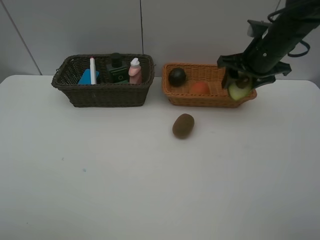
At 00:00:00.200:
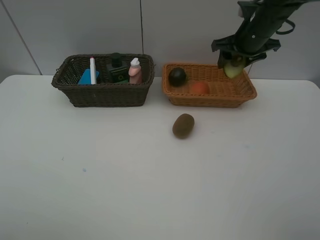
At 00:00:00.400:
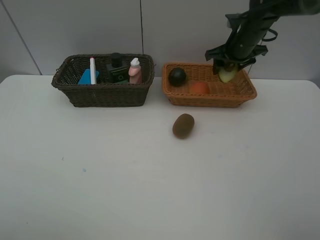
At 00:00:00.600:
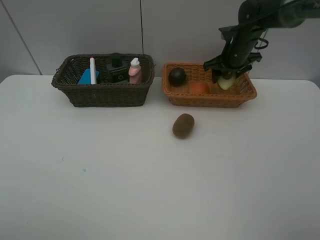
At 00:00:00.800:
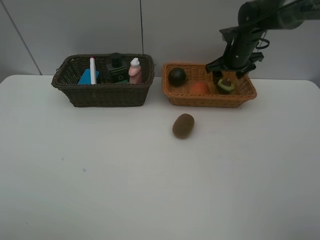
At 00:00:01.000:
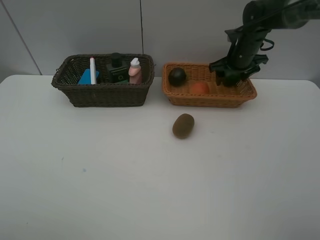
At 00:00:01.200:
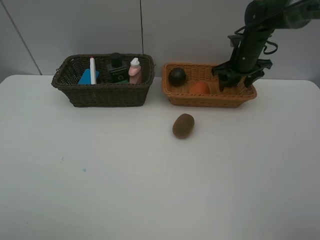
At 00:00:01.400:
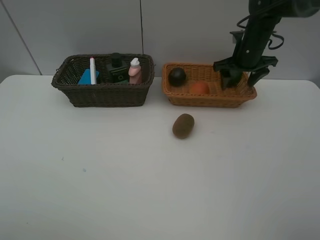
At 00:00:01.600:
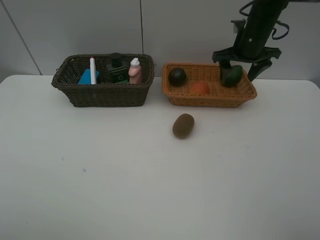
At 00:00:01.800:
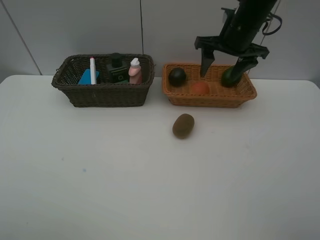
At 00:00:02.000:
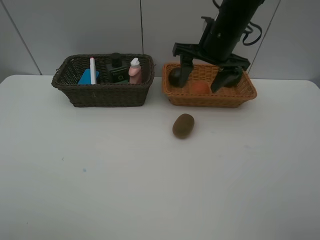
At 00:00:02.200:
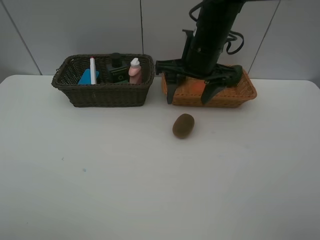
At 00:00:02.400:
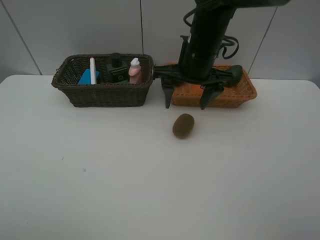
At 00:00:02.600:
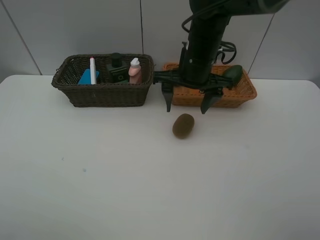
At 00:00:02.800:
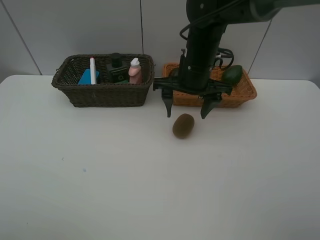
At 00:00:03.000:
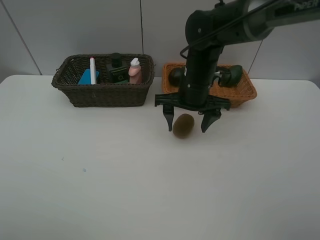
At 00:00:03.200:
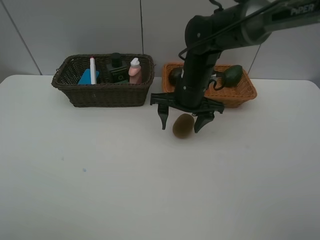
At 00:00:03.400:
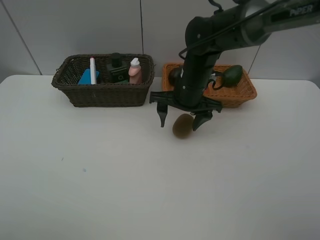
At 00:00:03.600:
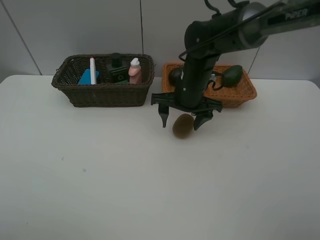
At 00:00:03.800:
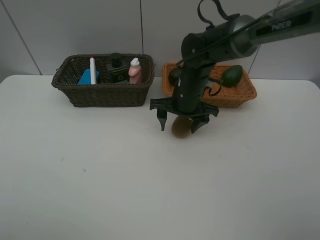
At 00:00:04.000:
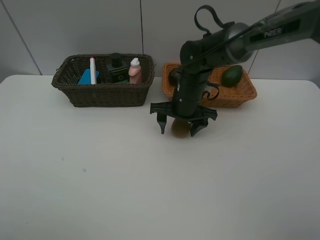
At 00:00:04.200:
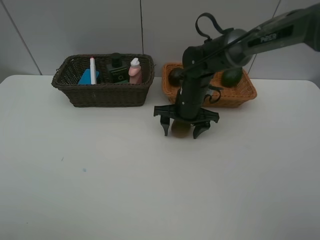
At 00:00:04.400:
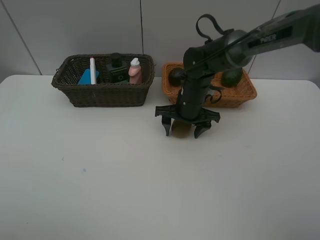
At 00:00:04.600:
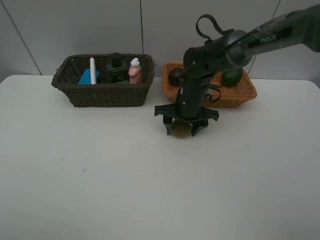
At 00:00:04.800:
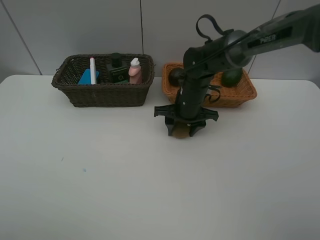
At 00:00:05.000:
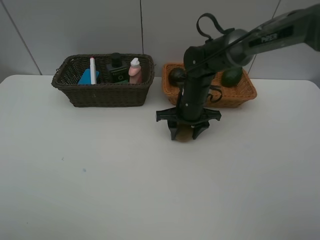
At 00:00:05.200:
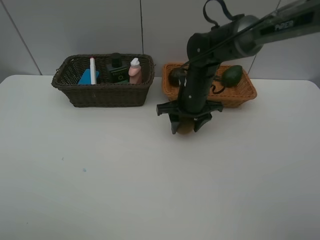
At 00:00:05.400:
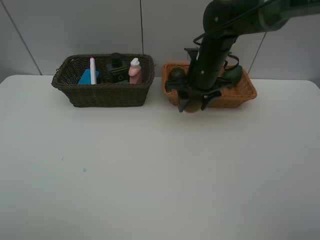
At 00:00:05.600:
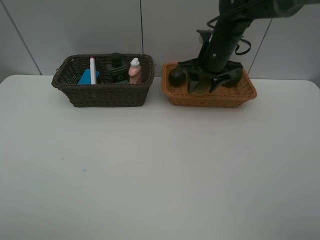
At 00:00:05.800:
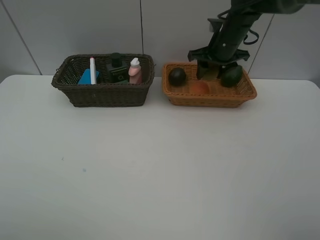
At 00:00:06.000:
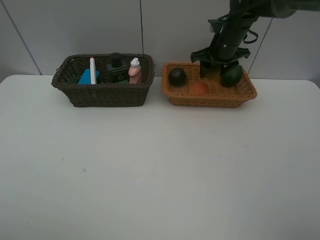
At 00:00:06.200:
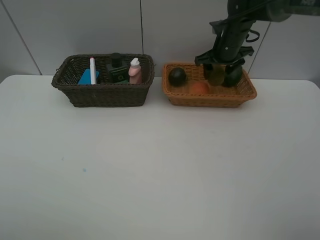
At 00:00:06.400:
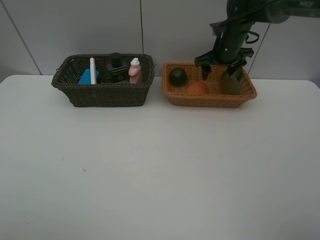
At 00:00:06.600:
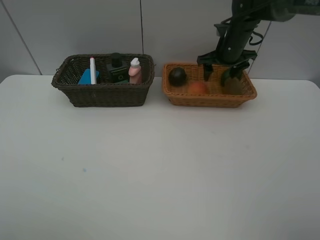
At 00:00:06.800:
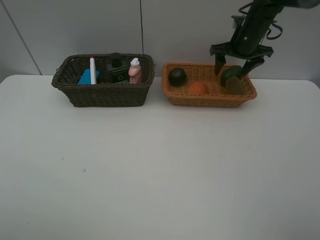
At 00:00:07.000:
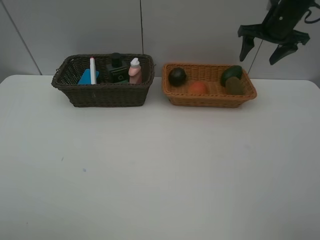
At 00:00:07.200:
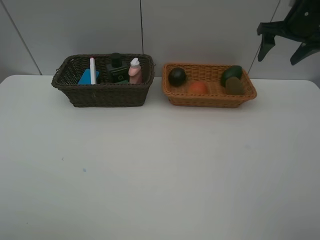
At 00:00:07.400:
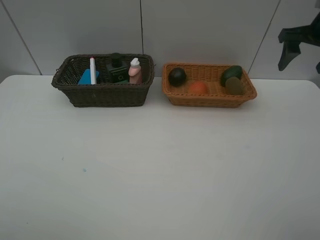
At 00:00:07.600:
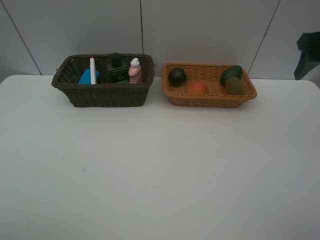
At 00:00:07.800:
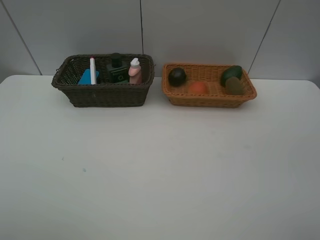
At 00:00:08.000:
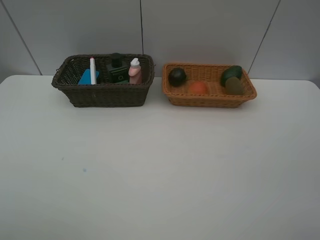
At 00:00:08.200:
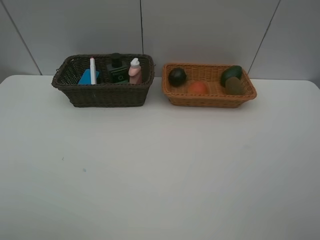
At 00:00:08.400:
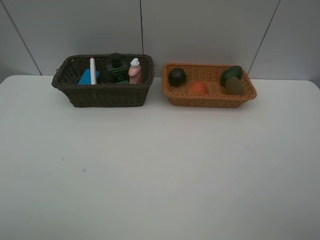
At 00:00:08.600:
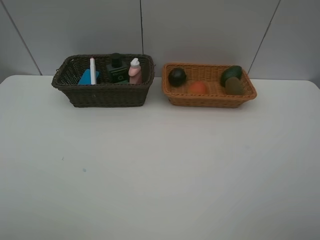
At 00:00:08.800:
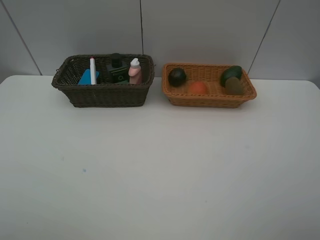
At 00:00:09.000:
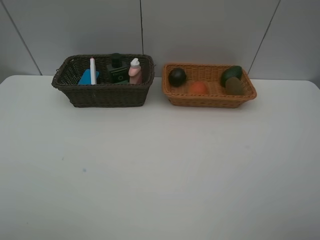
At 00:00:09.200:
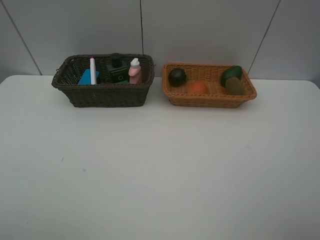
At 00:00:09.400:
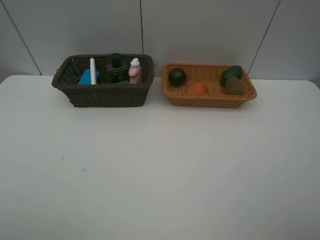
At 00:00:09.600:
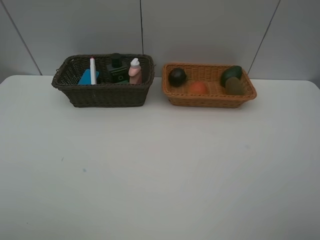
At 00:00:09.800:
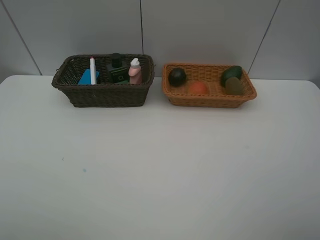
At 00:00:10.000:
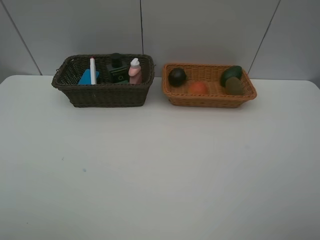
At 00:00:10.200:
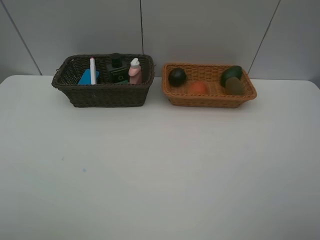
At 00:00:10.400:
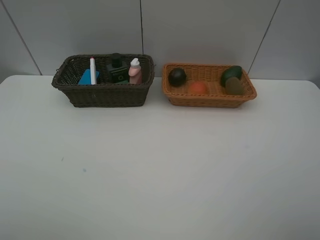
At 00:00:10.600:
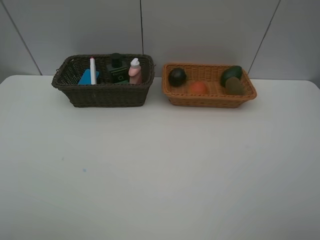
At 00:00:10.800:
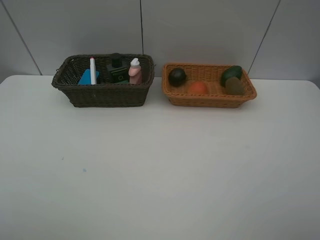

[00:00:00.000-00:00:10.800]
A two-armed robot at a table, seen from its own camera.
Task of the whole recording: Place multiple objects separately in different baskets.
Step, 00:00:00.000 to 00:00:01.000: Place the avocado in the light basket with right gripper.
Step, 00:00:01.200 to 00:00:05.200: Pick up kiwi with right gripper.
Step, 00:00:05.400 to 00:00:06.400: Place the kiwi in the light basket with right gripper.
00:00:00.000 to 00:00:01.600: The right gripper is displaced forward by approximately 5 cm.
00:00:01.600 to 00:00:03.000: The right gripper shifts some 20 cm to the left, backward and downward.
00:00:03.000 to 00:00:04.600: The right gripper moves downward, about 5 cm.
00:00:04.600 to 00:00:06.200: The right gripper goes approximately 20 cm forward, to the right and upward.
00:00:06.200 to 00:00:07.800: The right gripper travels backward, to the right and upward by approximately 35 cm.
00:00:09.200 to 00:00:10.800: The two grippers keep their place.
